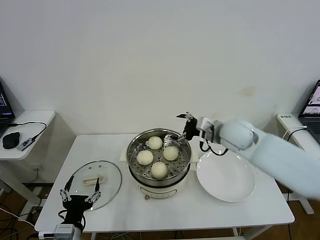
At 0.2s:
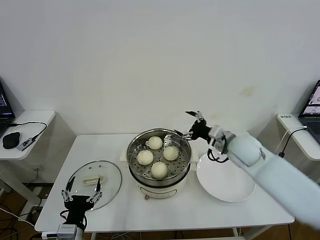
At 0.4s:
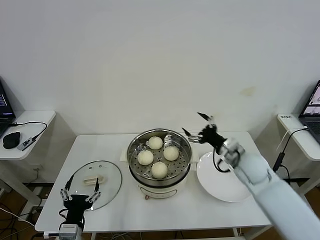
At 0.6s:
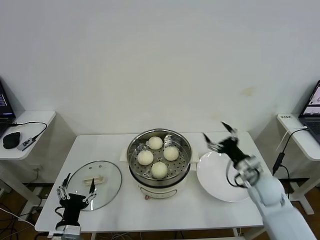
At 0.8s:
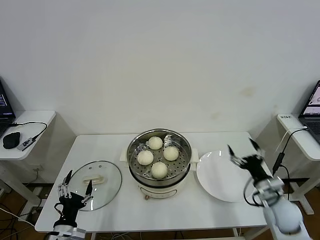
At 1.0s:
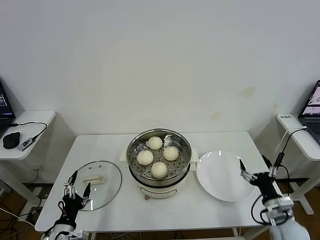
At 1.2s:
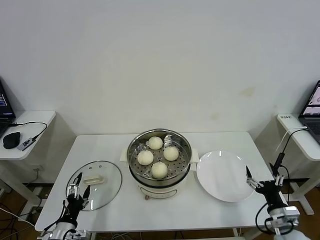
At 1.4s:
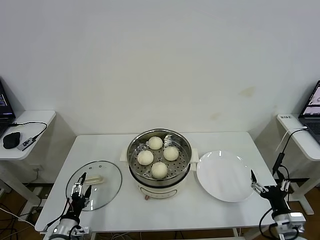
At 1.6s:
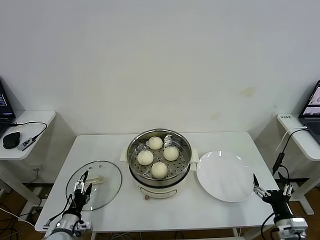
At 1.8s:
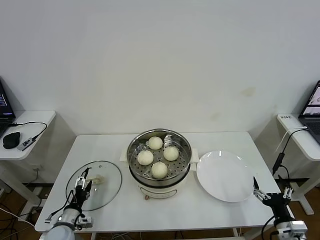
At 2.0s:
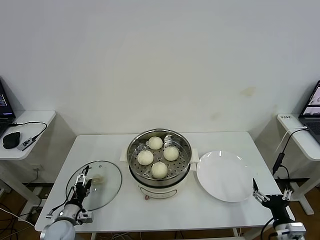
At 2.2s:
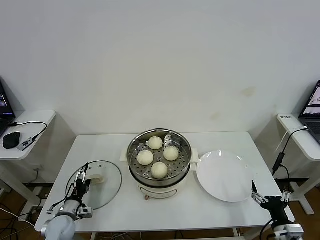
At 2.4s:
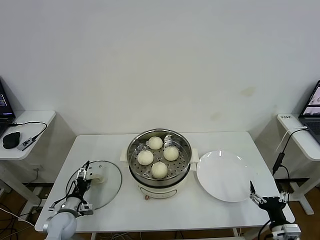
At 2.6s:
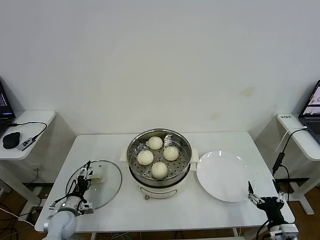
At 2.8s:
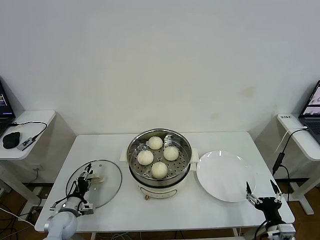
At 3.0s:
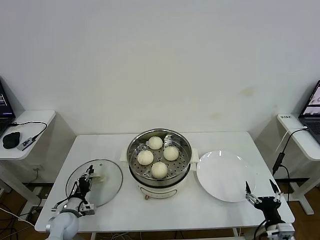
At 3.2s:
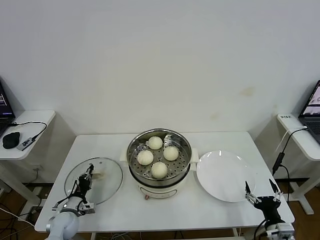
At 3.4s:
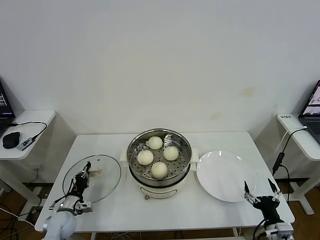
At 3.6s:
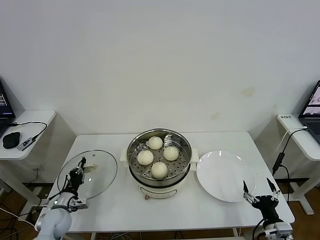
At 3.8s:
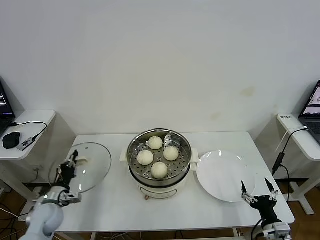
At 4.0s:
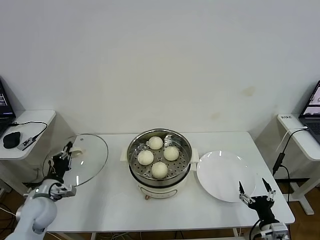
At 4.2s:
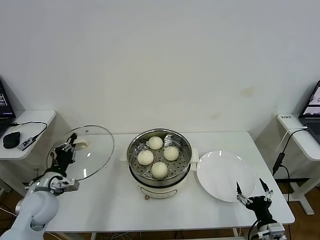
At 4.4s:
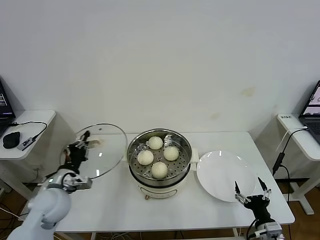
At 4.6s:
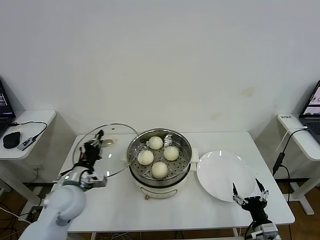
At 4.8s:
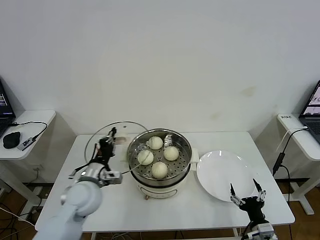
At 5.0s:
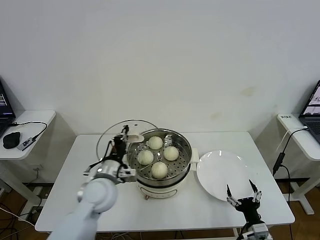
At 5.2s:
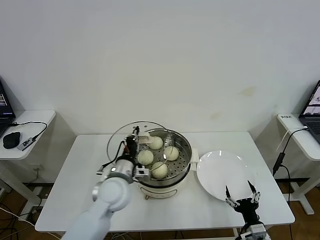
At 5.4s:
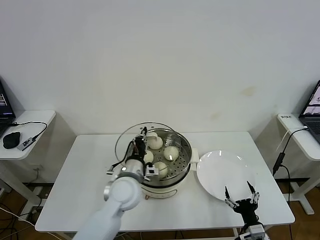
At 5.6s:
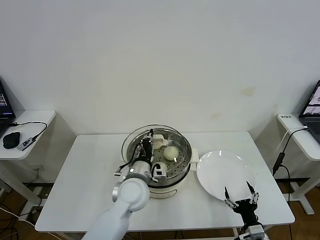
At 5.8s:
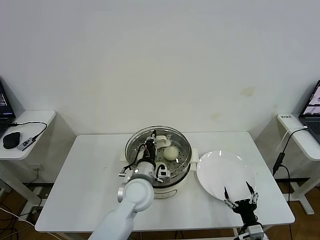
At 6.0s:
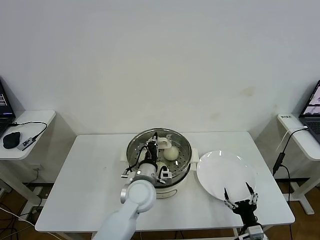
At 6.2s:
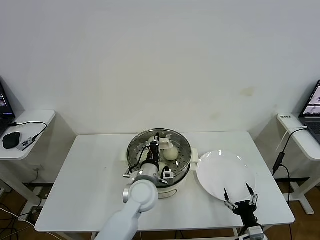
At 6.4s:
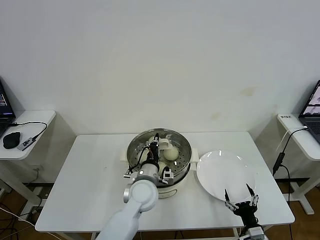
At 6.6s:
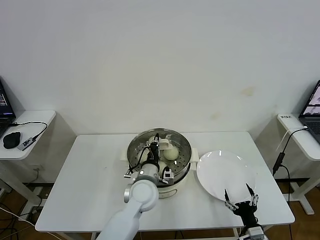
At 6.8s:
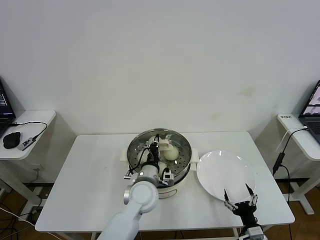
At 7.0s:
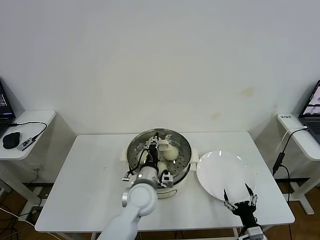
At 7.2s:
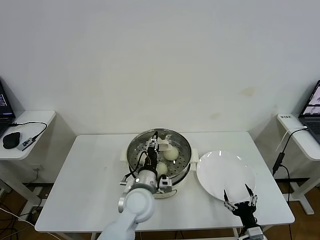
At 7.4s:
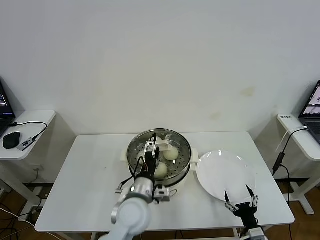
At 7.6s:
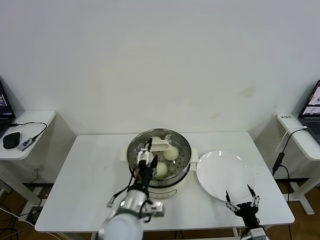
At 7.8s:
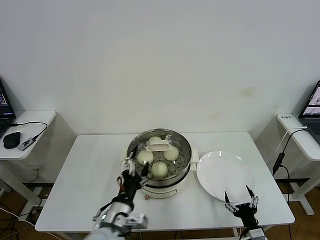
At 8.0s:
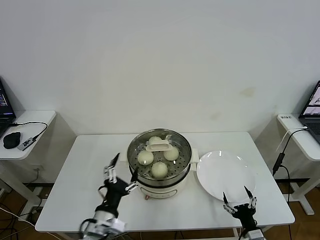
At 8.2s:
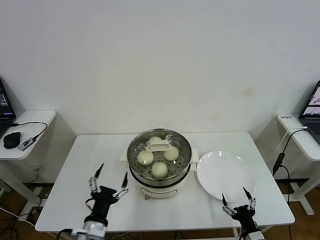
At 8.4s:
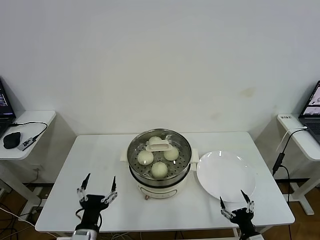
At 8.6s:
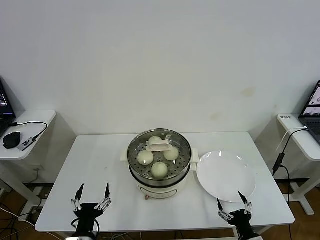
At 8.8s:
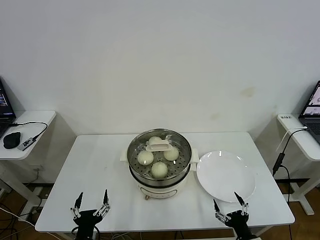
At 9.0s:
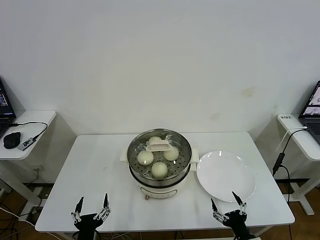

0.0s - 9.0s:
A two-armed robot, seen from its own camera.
Task of the whole recording: take steamed baozi put them in steamer then cover it.
Step, 0.0s - 3.2s: Grasp the pot lid with left gripper.
Step, 3.4s - 7.0s: Place the pot lid on the steamer with left gripper.
0.0s - 1.6s: The left gripper shifts some 15 cm downward, to the left and forward. Meanwhile the right gripper shifts roughly 40 cm backward, downward and to the right.
1.6s - 3.0s: The left gripper is displaced forward by about 10 cm, and closes up.
3.0s - 4.4s: The left gripper is displaced upward by roughly 20 cm, and closes its fingers.
4.4s - 6.0s: The left gripper shifts some 25 cm to the right.
6.0s - 7.6s: The left gripper travels backward by approximately 10 cm, and opens.
7.6s - 9.0s: The left gripper travels to the left, backward and downward by about 20 cm. Meanwhile the right gripper ends up about 5 cm from where it was.
